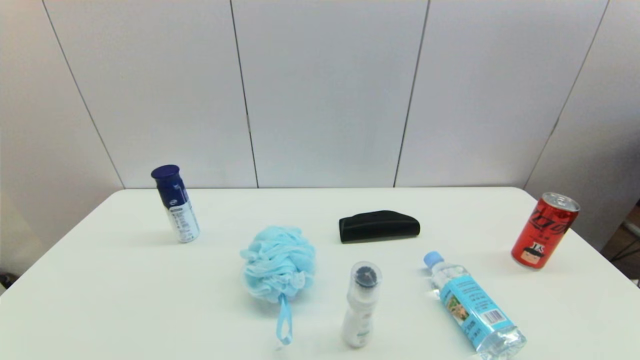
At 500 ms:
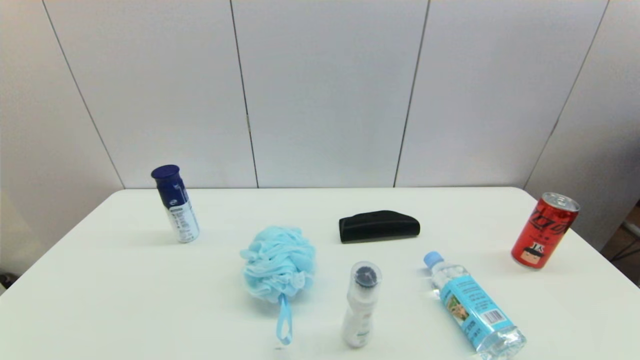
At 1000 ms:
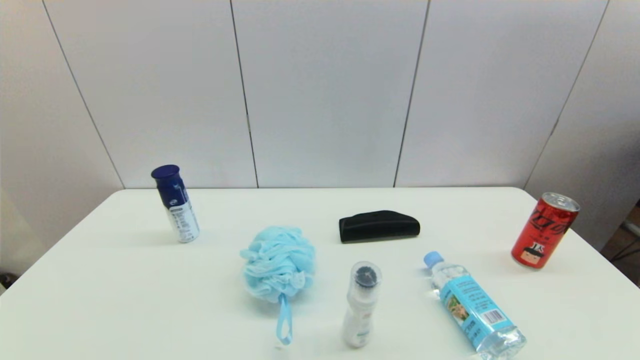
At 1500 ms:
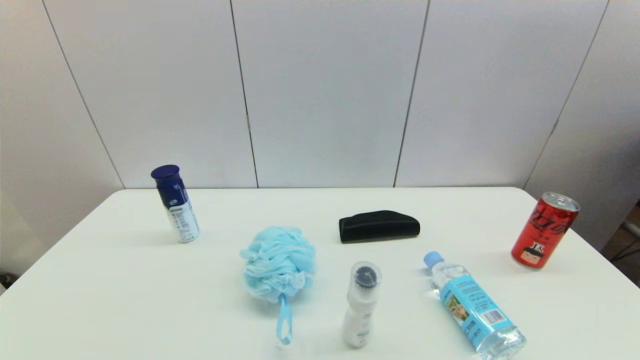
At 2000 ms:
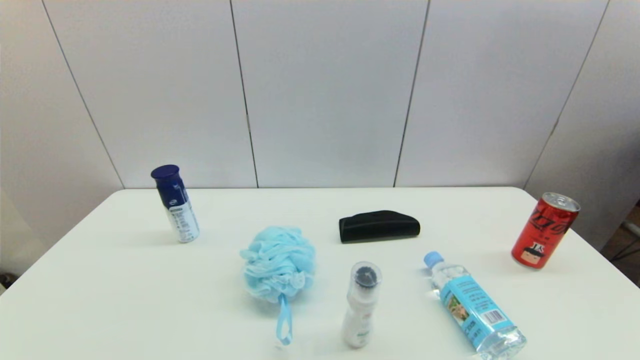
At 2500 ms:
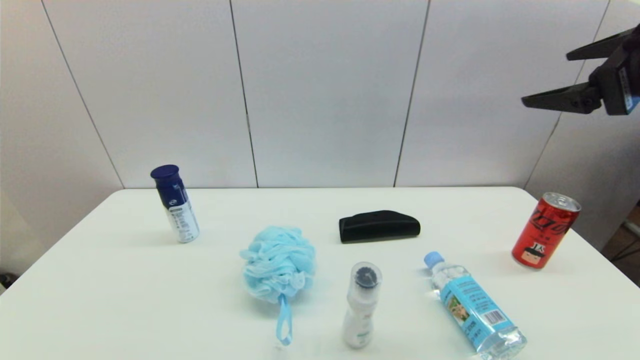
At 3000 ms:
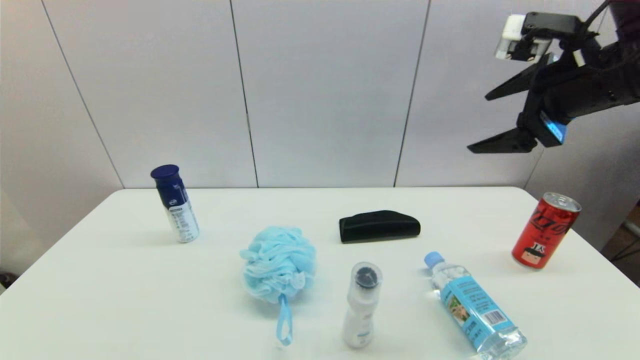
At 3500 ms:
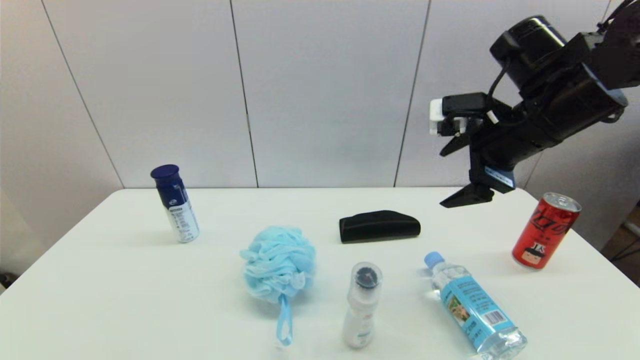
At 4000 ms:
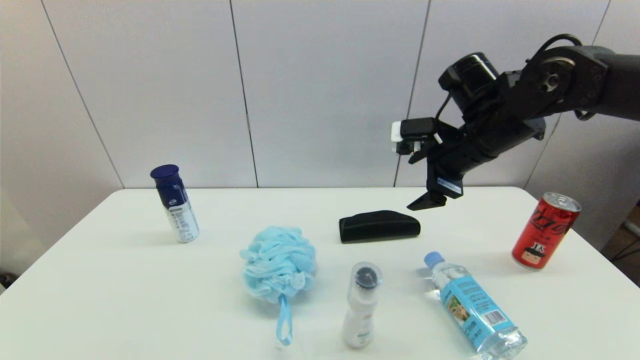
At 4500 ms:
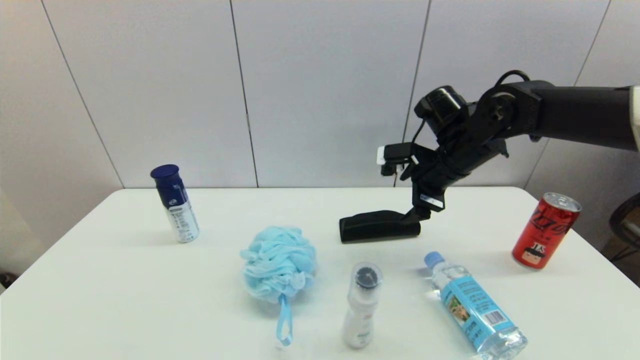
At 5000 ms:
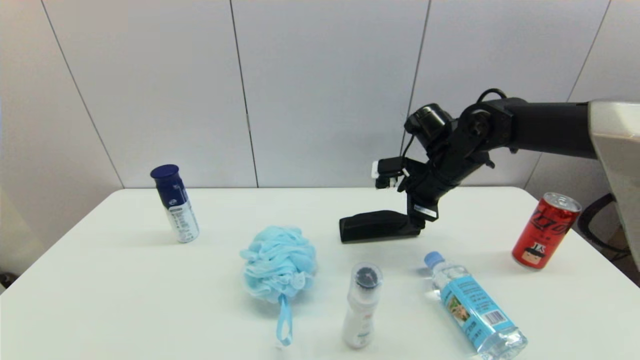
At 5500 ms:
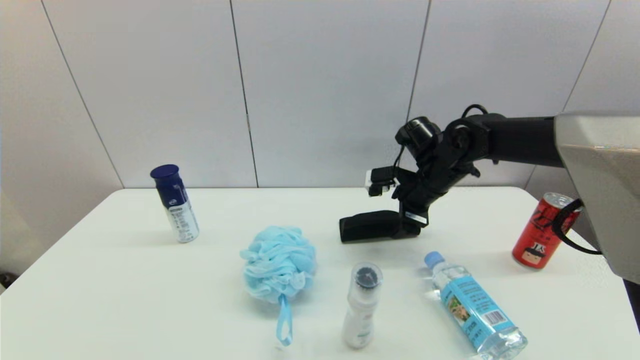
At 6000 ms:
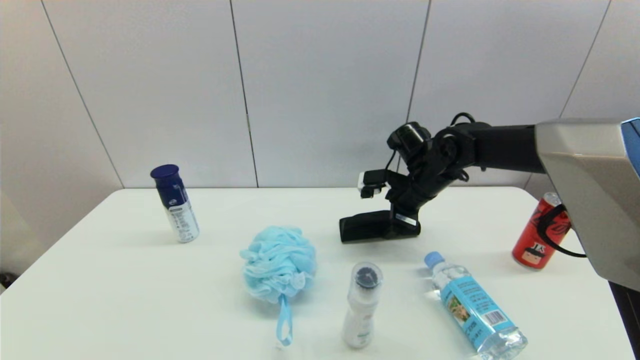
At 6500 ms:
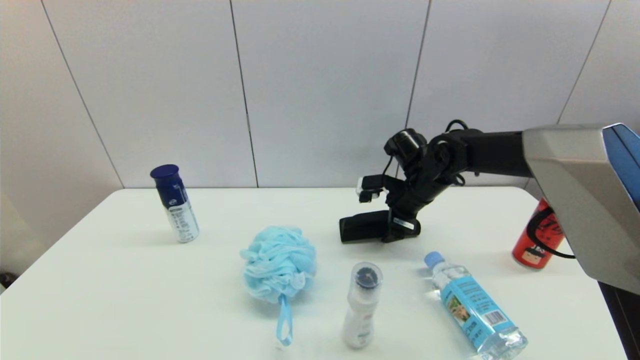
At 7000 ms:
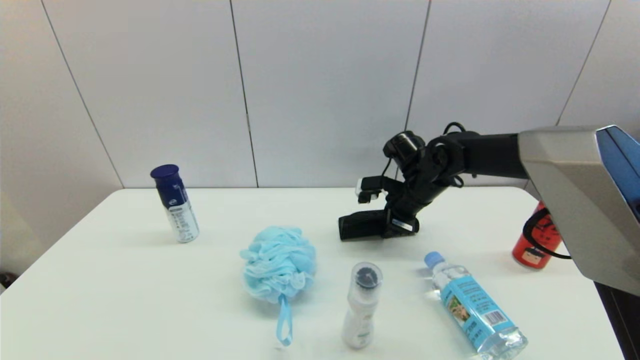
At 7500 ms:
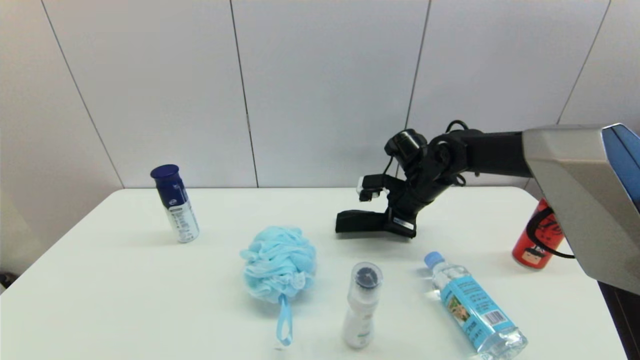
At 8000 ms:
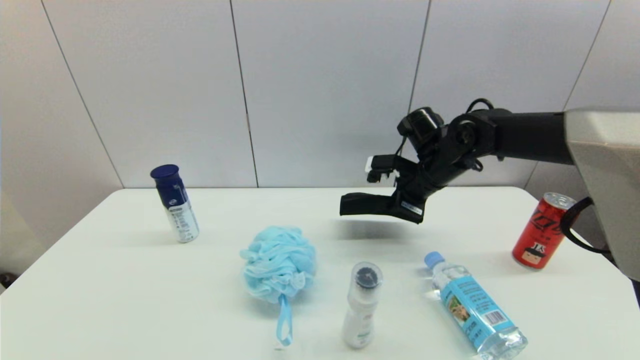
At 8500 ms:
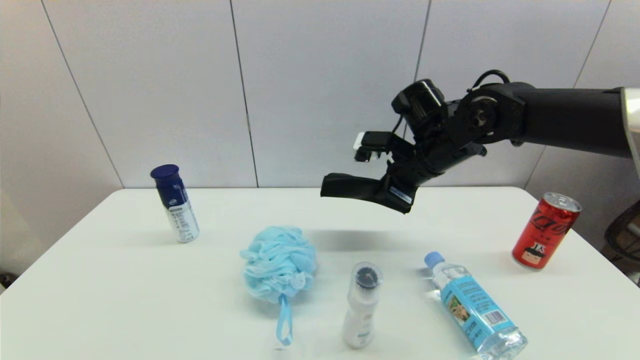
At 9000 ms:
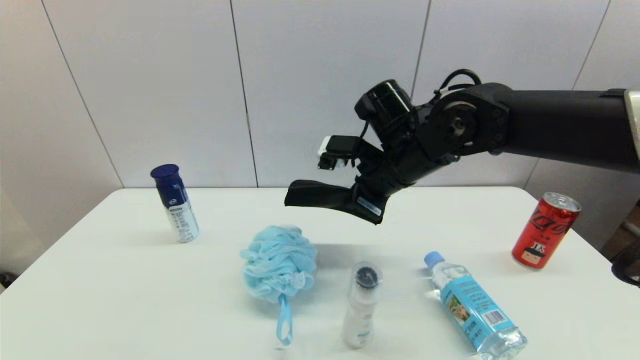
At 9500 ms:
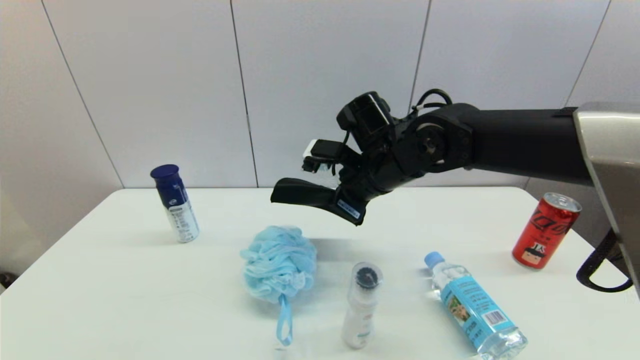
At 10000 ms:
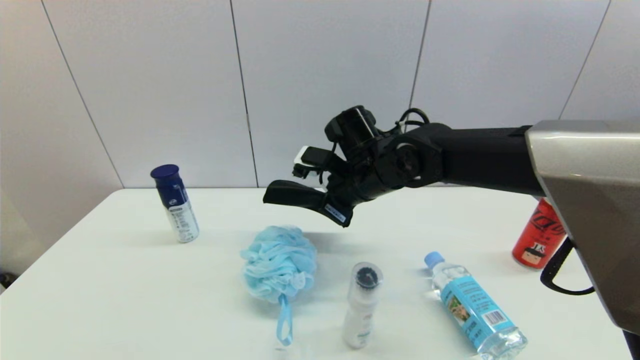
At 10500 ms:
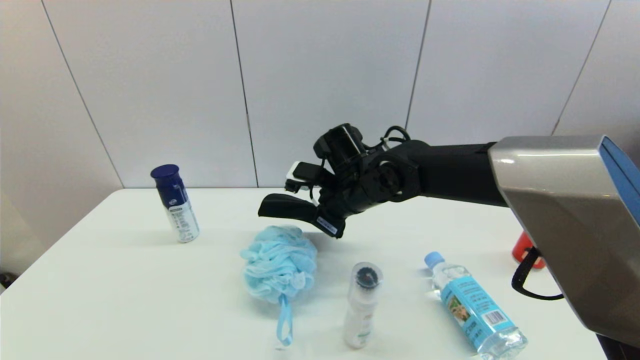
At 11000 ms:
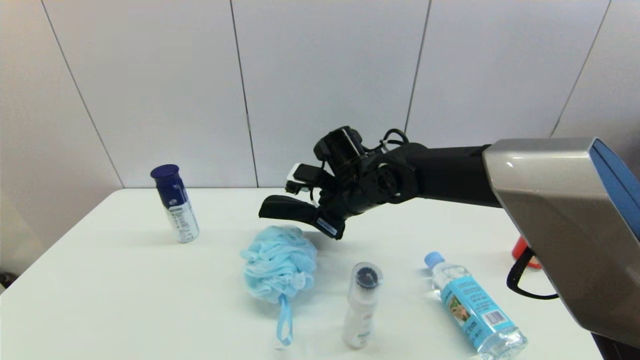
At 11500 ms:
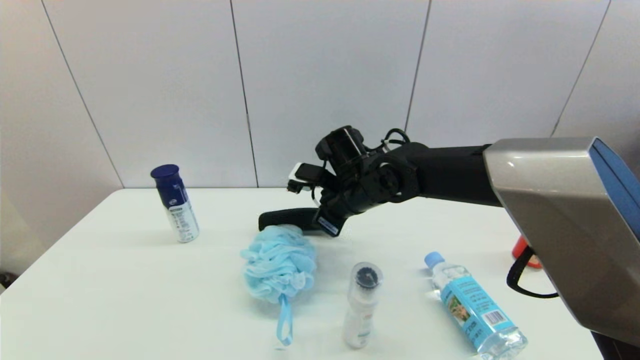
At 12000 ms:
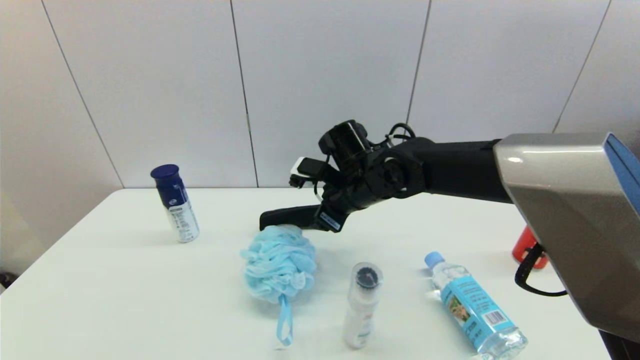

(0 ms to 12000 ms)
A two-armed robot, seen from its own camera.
Step, 2500 ms - 7000 ms: Grasp the glasses case with right gripper.
Step, 7500 ms - 11500 ms: Place the glasses case on the table with right gripper.
2000 ms - 4000 ms: The right gripper is displaced forward, to the left and downward by roughly 30 cm.
4000 ms - 6000 ms: The right gripper travels downward and forward by roughly 10 cm.
6000 ms - 8000 ms: The right gripper closes.
8000 ms - 10000 ms: The right gripper is displaced to the left and backward by about 15 cm.
10000 ms - 12000 ms: The right gripper opens.

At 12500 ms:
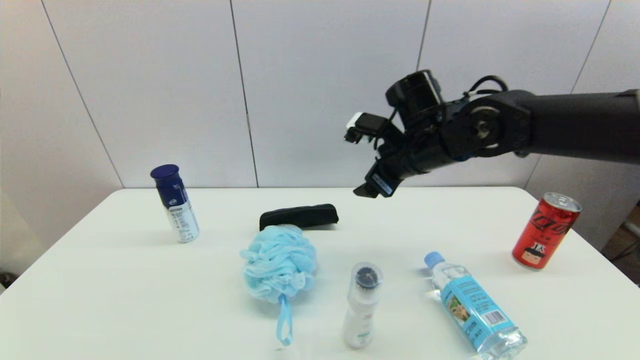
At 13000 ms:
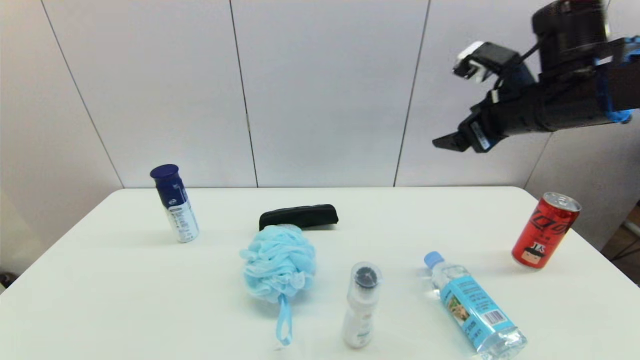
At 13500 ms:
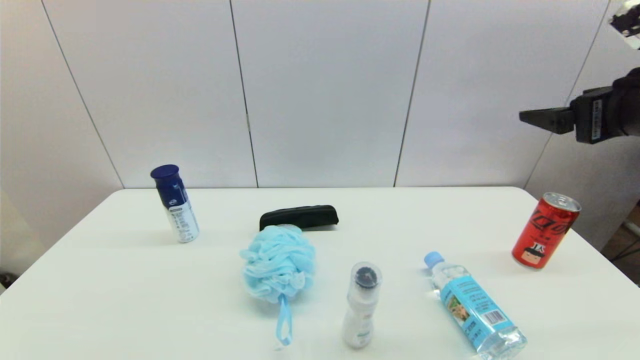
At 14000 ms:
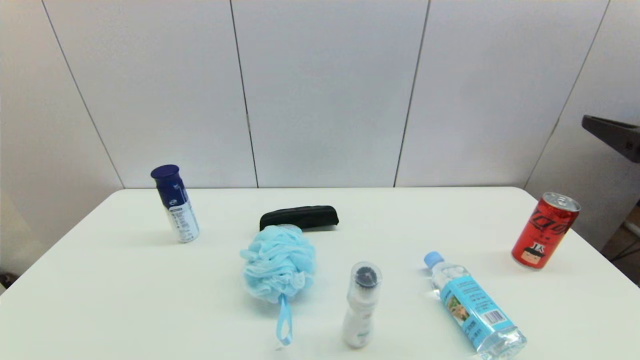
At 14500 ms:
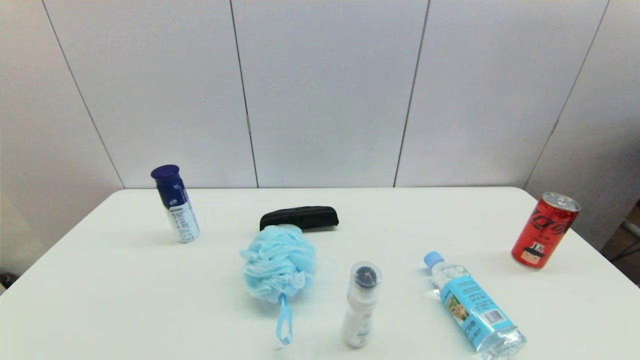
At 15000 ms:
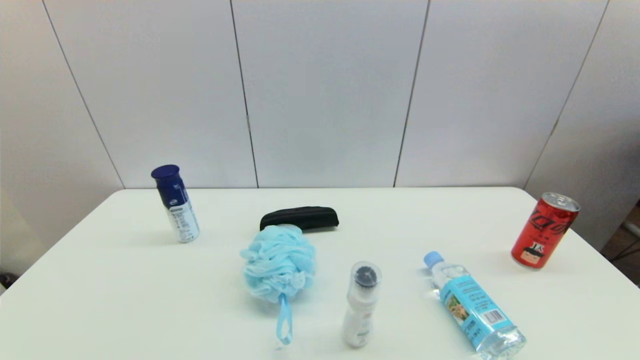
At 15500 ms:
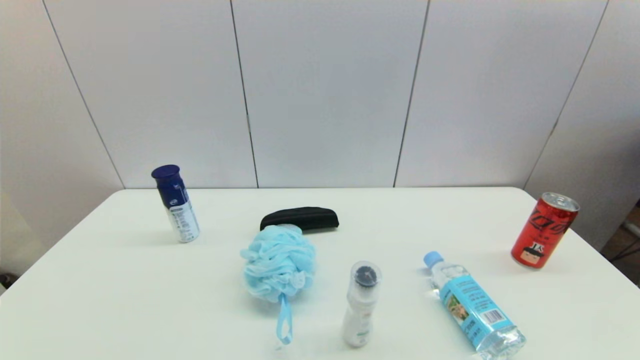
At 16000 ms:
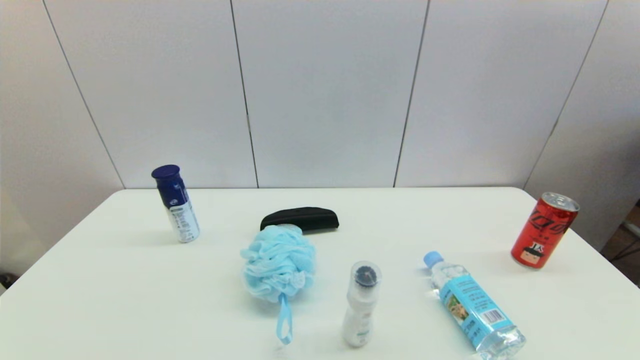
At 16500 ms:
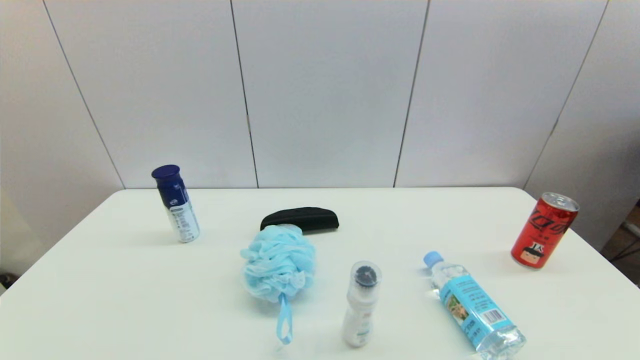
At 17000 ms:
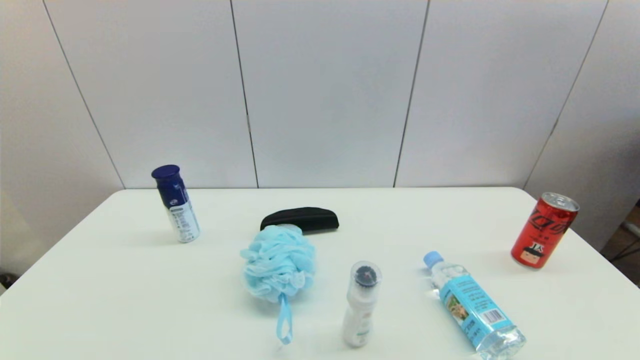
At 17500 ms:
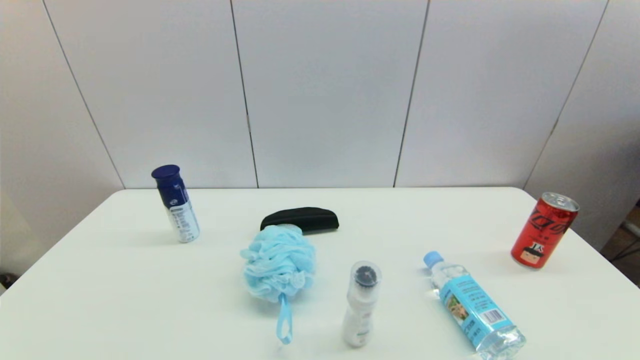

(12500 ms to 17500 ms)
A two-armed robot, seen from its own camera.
12500 ms - 15000 ms: The right gripper shifts roughly 40 cm backward and to the right.
